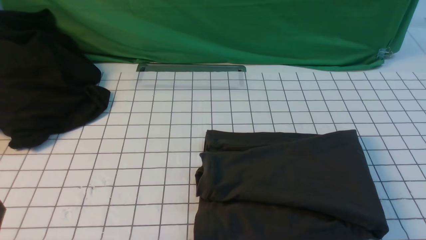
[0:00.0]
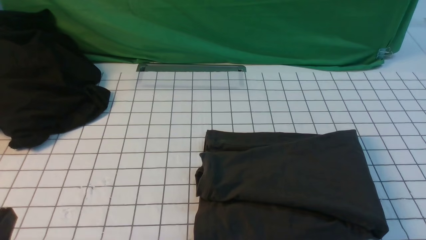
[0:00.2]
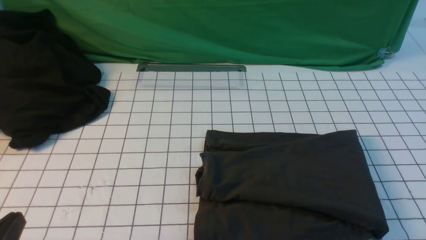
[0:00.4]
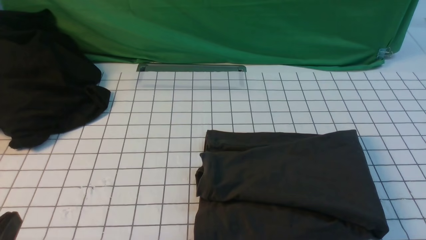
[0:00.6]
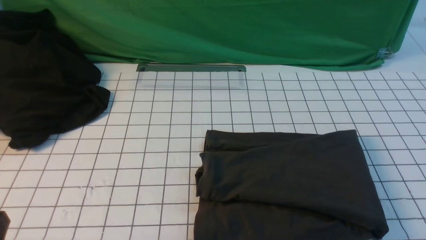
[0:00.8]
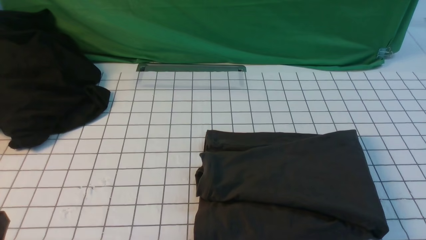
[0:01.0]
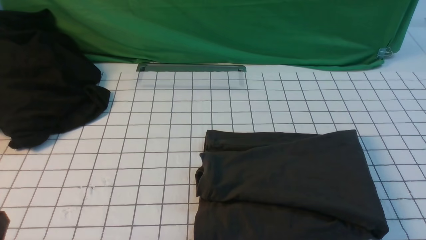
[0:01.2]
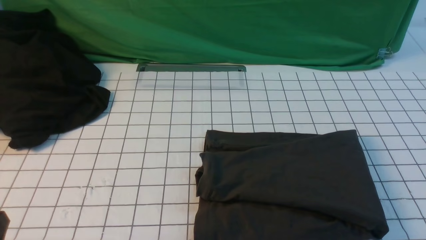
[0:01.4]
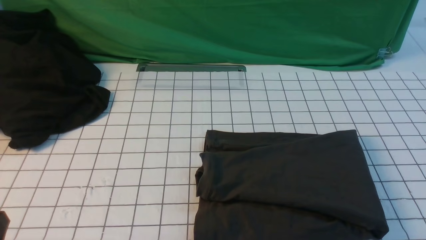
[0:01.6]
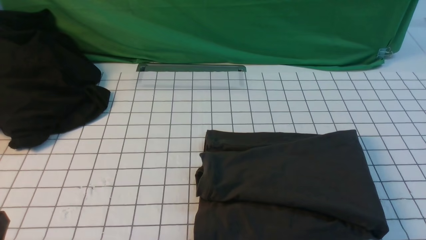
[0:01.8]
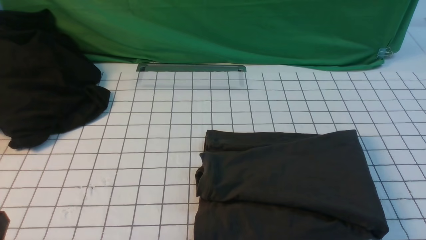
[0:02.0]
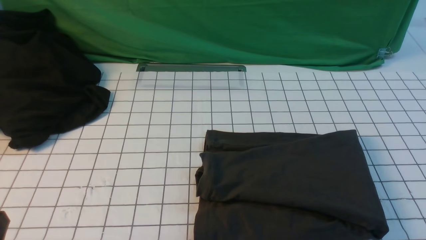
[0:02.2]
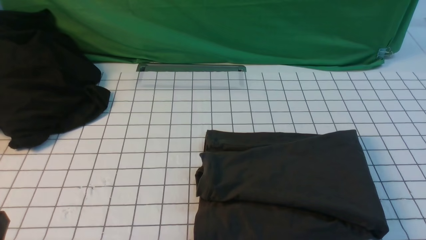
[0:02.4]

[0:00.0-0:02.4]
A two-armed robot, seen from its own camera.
0:01.2 to 0:02.4: Both grippers stay about where they are.

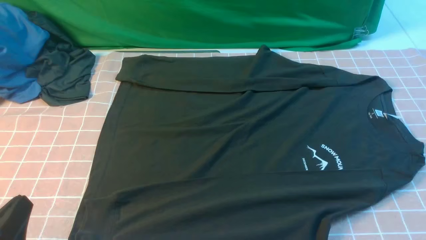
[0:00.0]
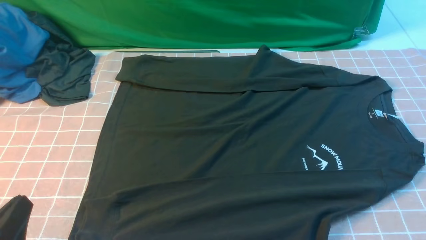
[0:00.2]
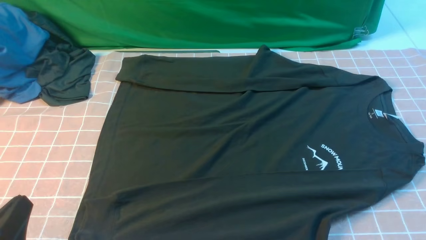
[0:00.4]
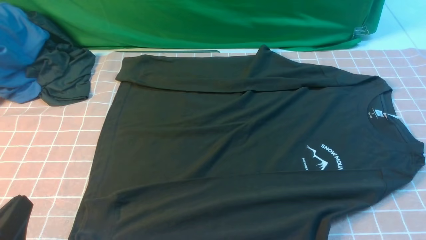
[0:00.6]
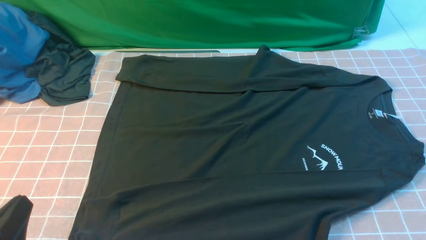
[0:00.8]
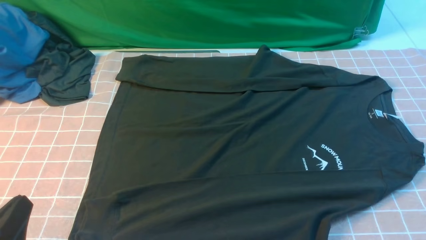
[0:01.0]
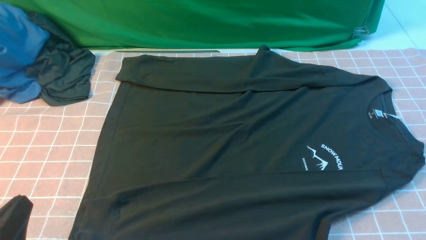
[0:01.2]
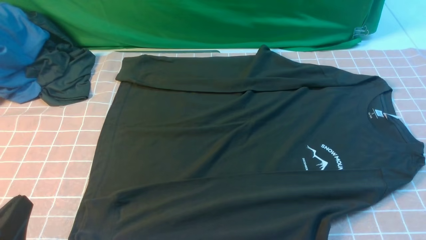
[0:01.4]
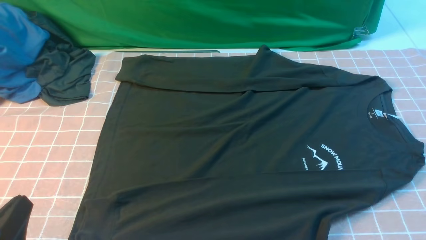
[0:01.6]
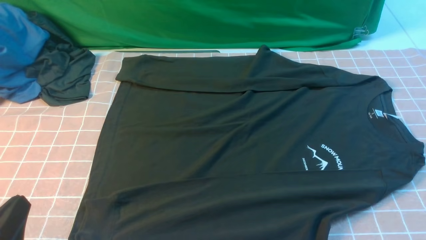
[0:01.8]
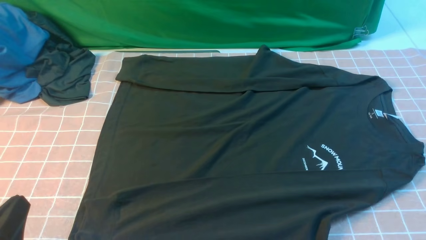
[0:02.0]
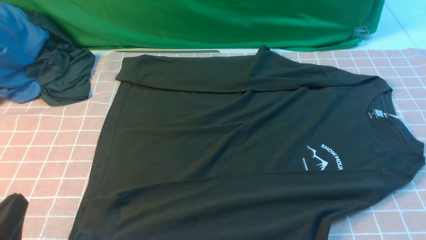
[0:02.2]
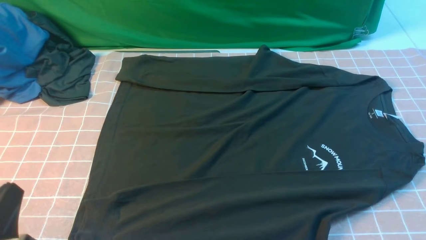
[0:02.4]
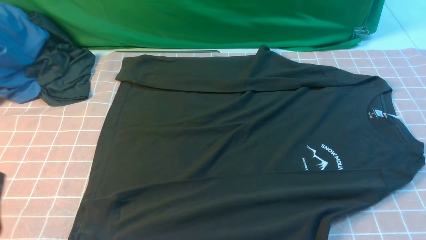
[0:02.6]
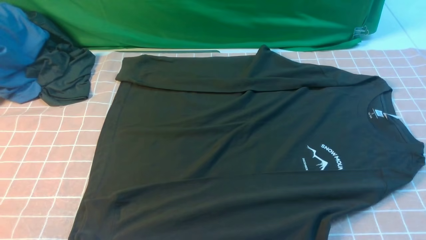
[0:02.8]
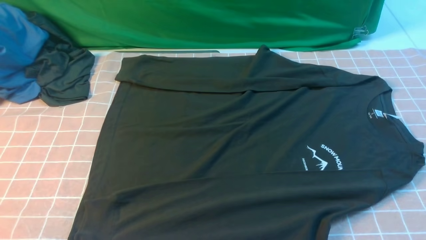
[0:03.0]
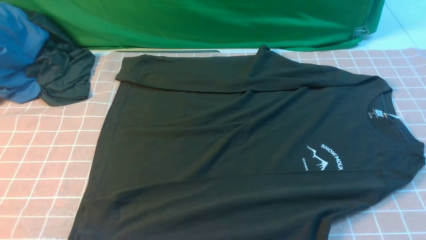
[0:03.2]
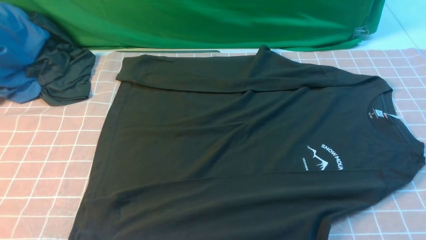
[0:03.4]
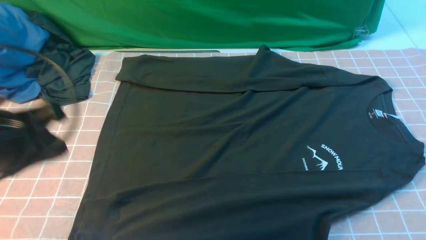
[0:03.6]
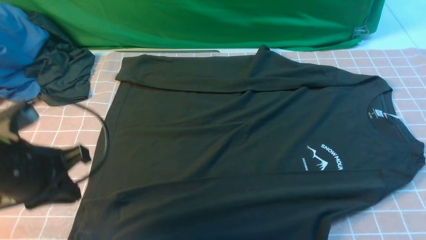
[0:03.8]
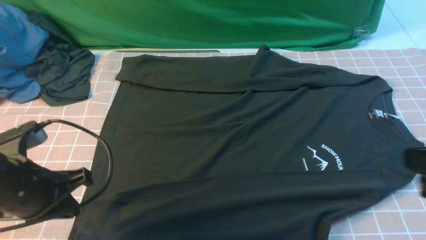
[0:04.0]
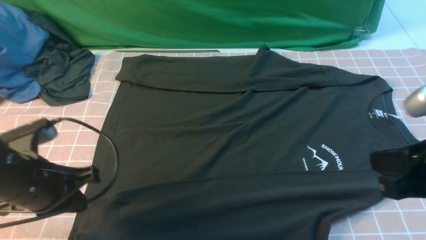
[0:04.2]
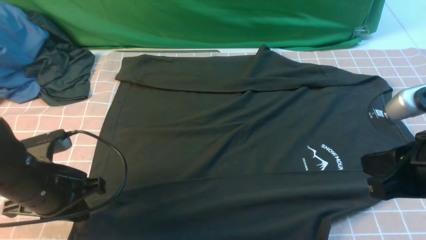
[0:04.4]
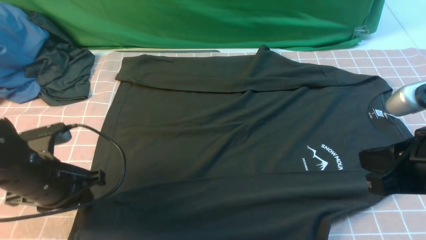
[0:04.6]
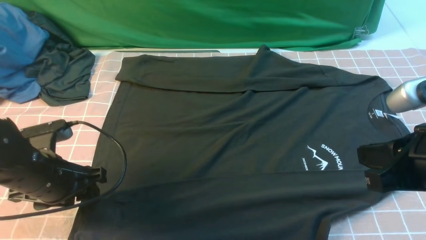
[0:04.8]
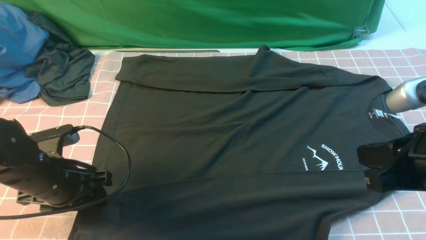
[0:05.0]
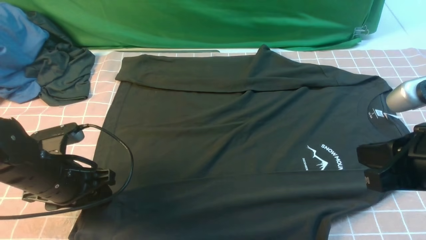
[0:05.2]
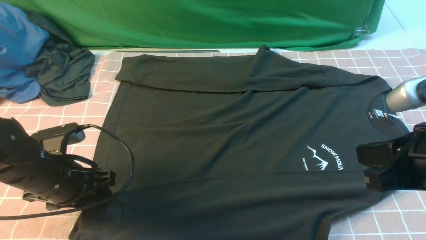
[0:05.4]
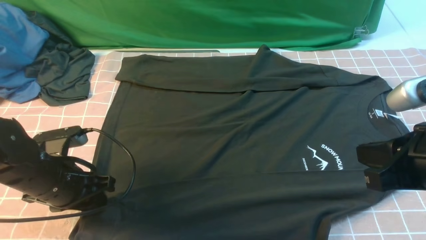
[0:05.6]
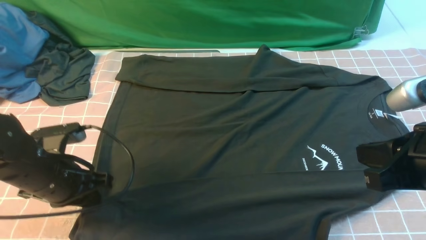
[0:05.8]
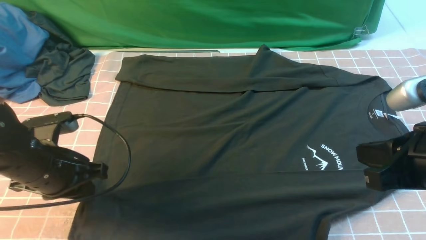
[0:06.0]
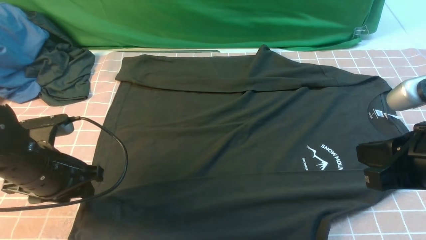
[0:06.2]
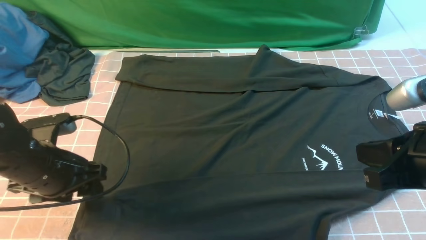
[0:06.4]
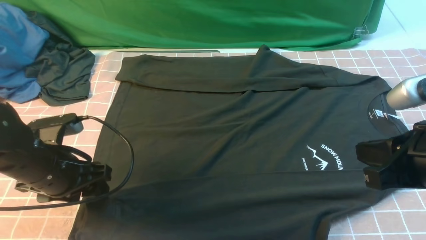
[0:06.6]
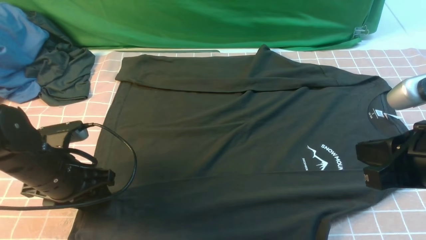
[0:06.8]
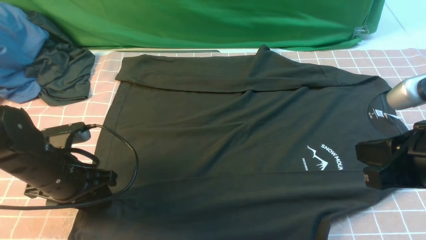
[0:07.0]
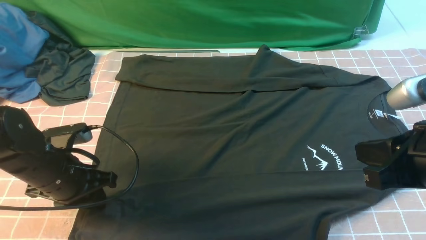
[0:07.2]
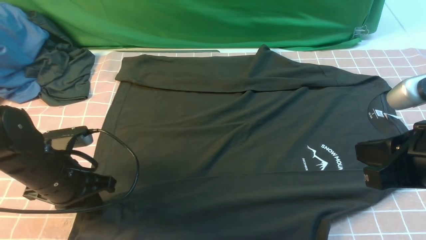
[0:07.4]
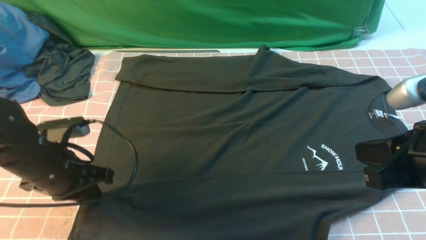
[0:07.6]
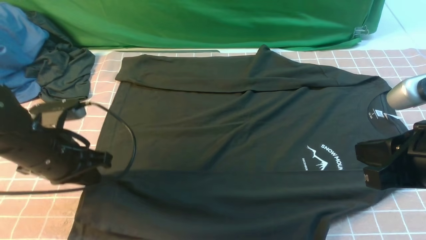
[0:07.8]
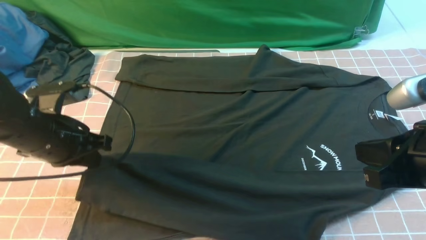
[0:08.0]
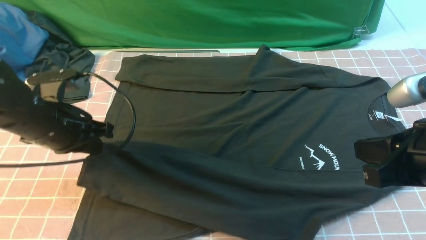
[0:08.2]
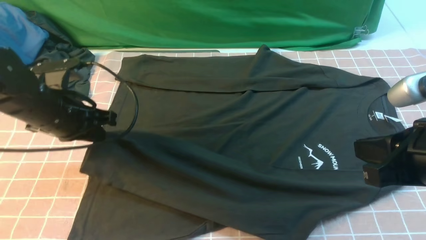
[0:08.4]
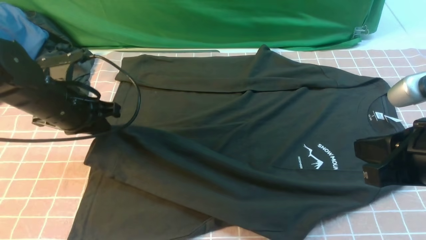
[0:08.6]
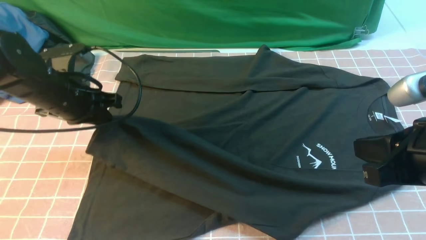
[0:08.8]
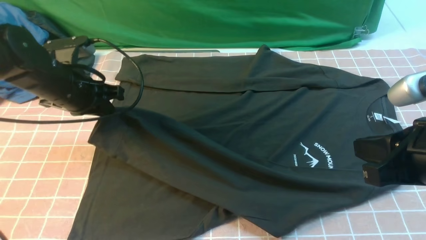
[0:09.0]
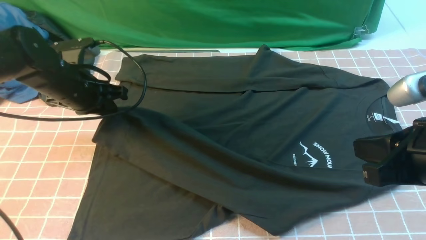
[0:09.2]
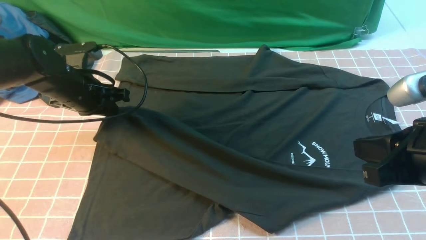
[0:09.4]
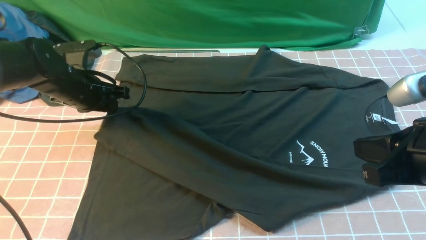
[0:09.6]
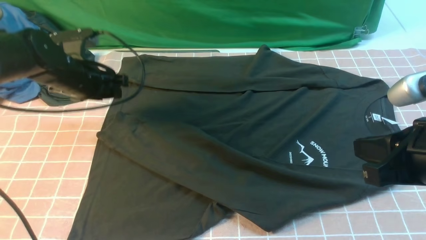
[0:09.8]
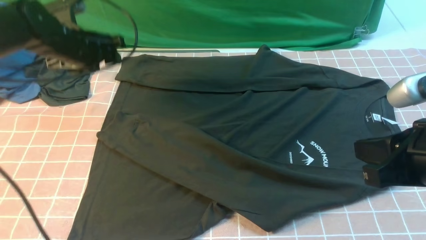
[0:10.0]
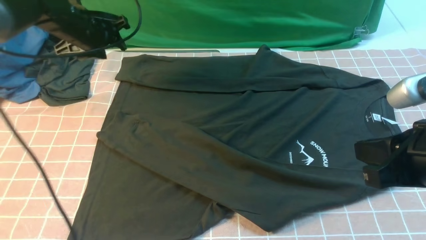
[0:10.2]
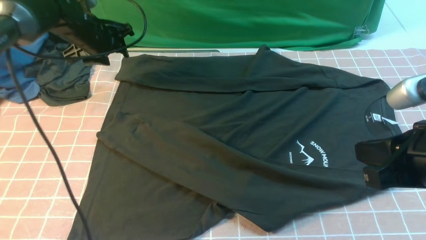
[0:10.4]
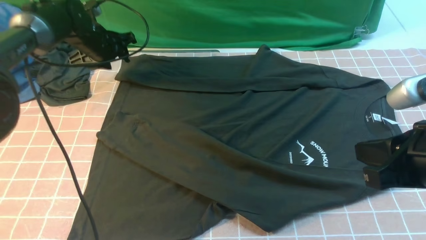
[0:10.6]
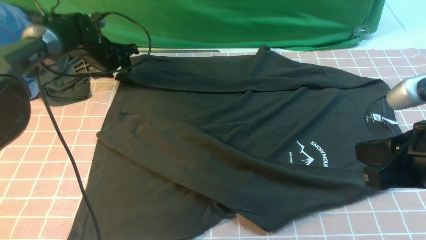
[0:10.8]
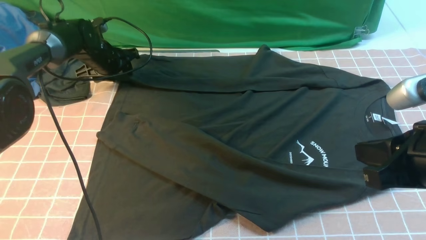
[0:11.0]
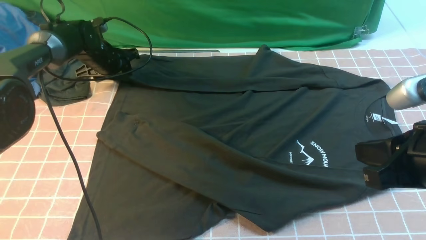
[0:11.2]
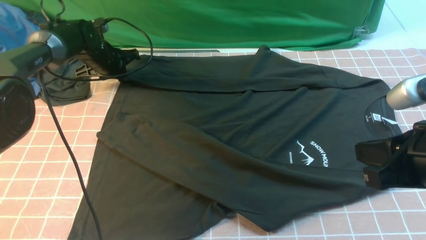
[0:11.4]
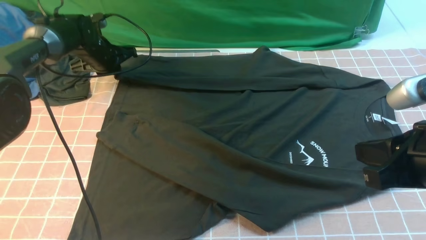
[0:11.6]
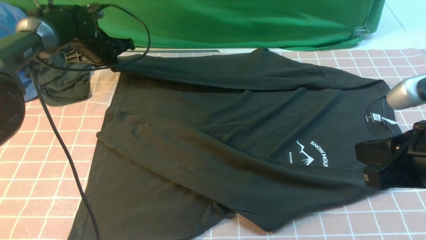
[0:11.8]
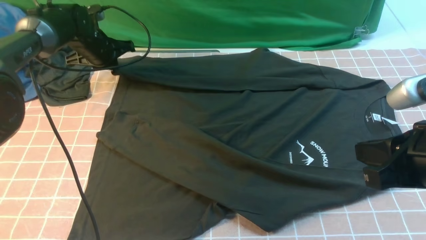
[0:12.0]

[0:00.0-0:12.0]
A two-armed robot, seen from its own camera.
Step, 0:00.0 to 0:07.6: use the left arm to clamp the cuff closest to it.
Step, 0:07.8 to 0:09.6: use the left arm to drag and place the cuff at the centered position on the left edge of the fabric.
Step, 0:09.8 to 0:11.8: use the left arm to clamp the cuff farthest from it.
0:00.0 to 0:01.6: Neither gripper changes place.
0:01.6 to 0:03.0: The left gripper travels upward by about 5 cm.
0:03.0 to 0:04.4: The left gripper moves forward and downward, some 20 cm; the right gripper heads forward, to the left and upward, covering approximately 15 cm, and closes its fingers.
0:04.4 to 0:06.0: The left gripper opens and closes again.
0:06.0 to 0:07.6: The left gripper closes.
0:07.6 to 0:09.0: The left gripper is displaced forward by some 10 cm.
0:09.0 to 0:10.4: The left gripper goes approximately 15 cm forward, and opens.
0:10.4 to 0:12.0: The left gripper closes.

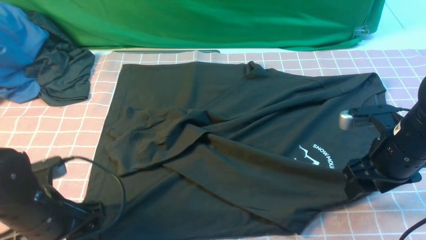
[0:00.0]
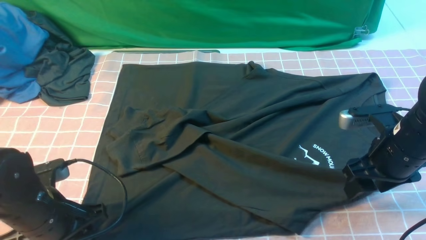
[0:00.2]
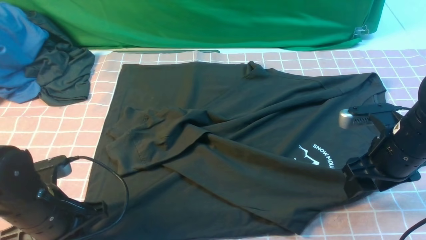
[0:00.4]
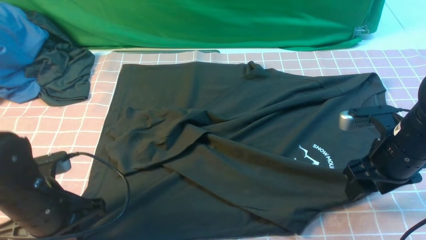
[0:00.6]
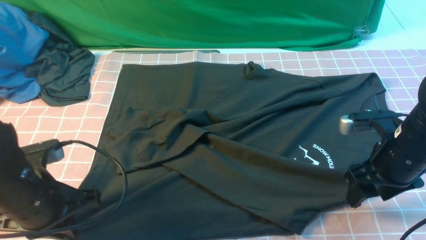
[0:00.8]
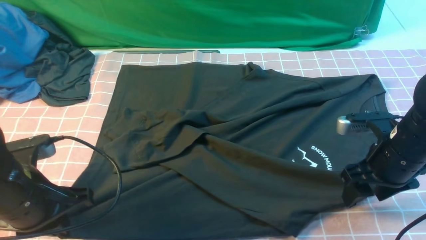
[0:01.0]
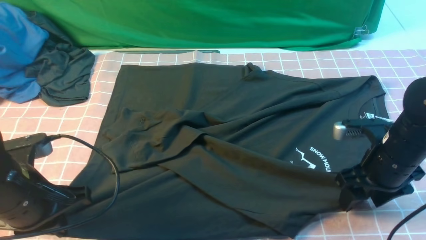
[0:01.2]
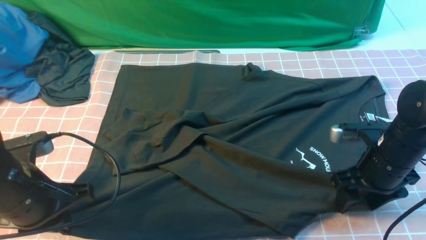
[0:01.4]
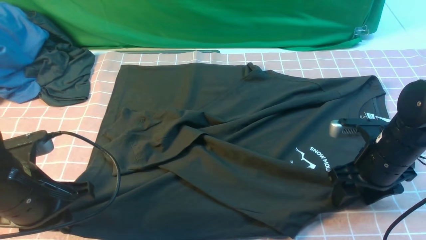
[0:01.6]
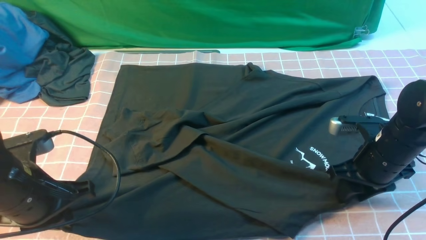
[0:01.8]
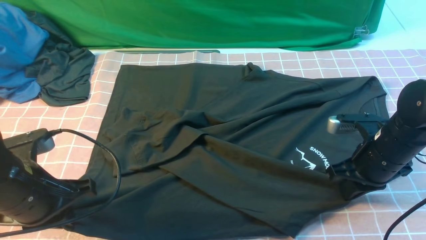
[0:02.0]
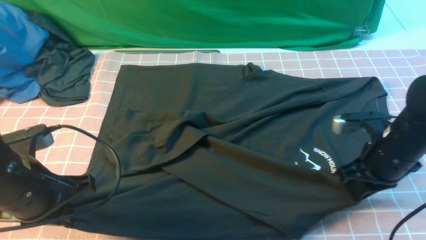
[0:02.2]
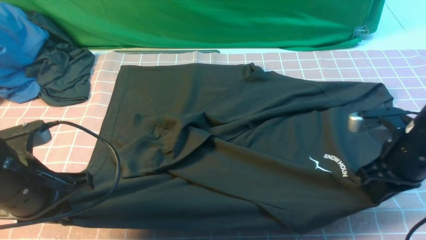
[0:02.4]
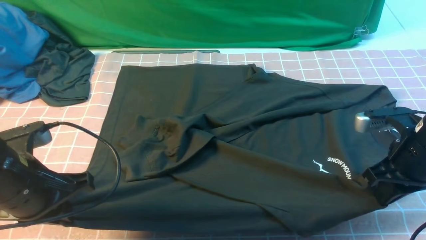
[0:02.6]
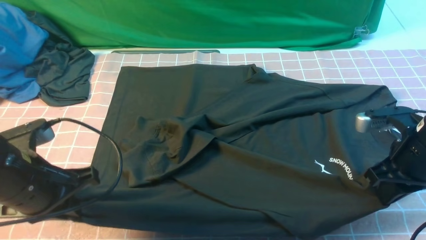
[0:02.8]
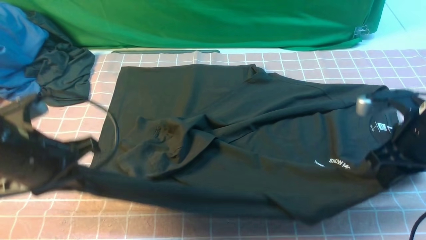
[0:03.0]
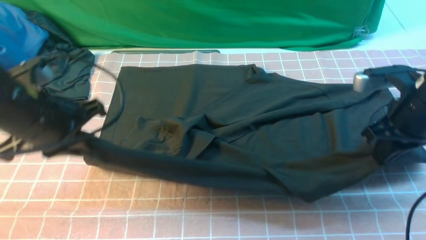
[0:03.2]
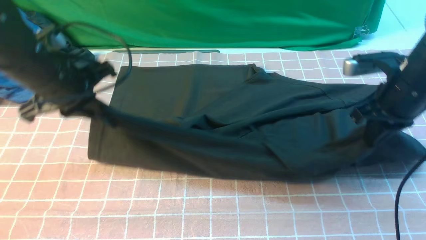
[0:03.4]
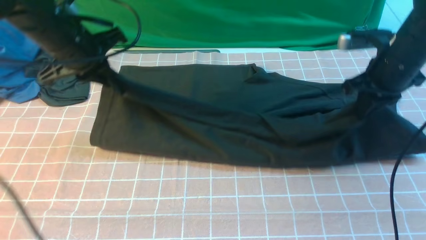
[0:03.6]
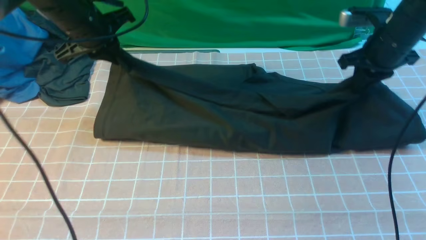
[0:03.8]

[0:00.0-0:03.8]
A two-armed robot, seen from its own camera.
Step, 0:00.0 to 0:02.6: use both arms simultaneously to clamp the lower edge of the clothing fabric.
0:00.0 to 0:01.2: The left gripper shifts by approximately 5 cm, and closes its fingers.
0:01.2 to 0:02.6: The right gripper closes.
0:02.6 to 0:03.8: Both grippers travel together forward, roughly 20 cm.
